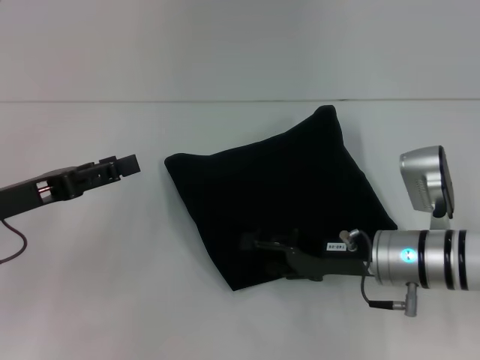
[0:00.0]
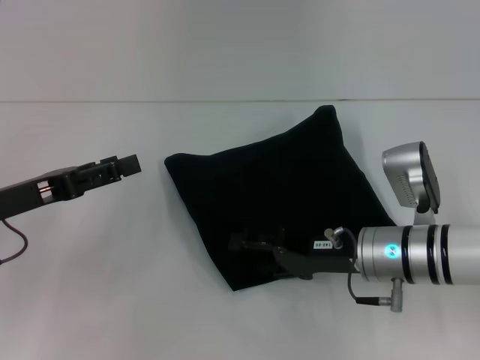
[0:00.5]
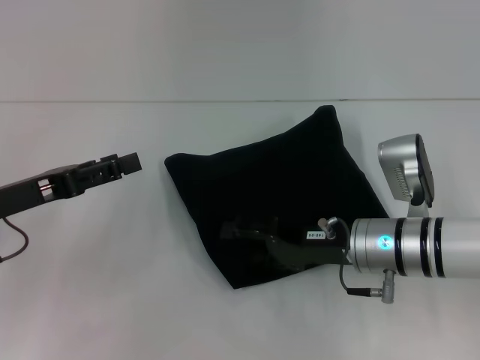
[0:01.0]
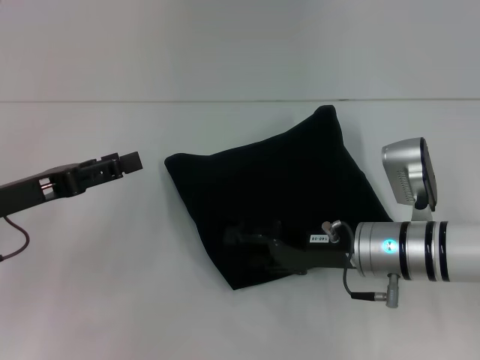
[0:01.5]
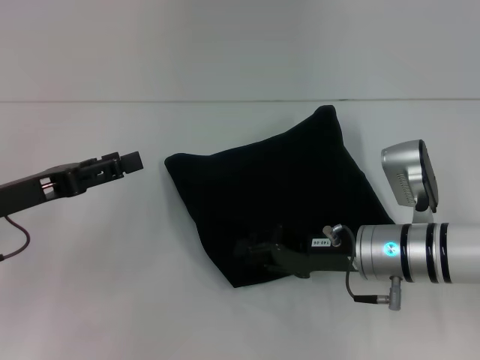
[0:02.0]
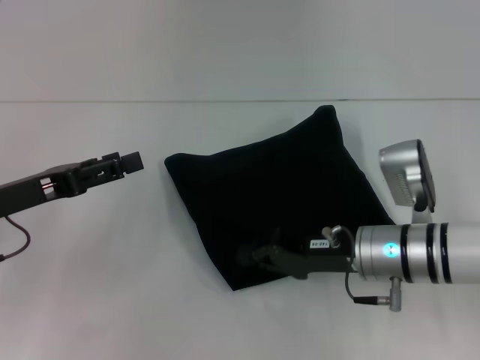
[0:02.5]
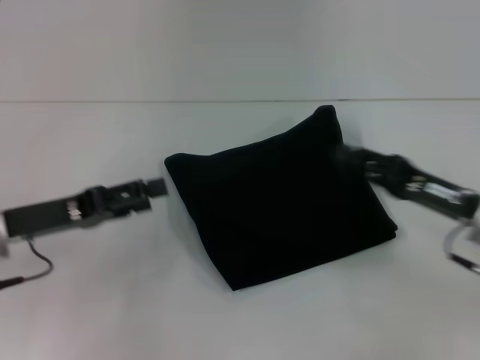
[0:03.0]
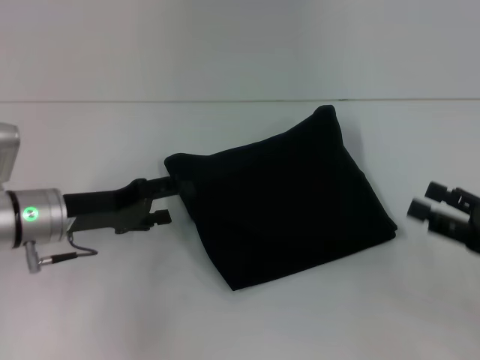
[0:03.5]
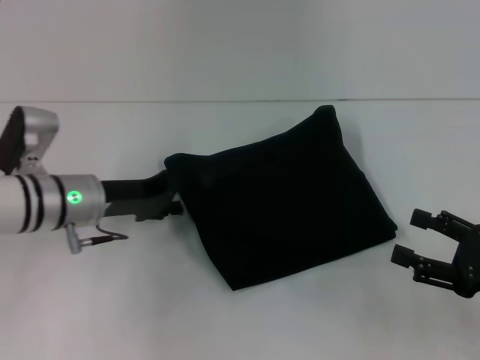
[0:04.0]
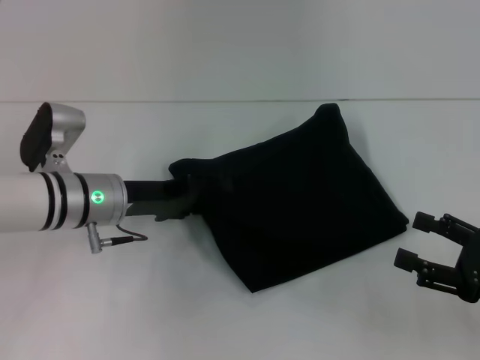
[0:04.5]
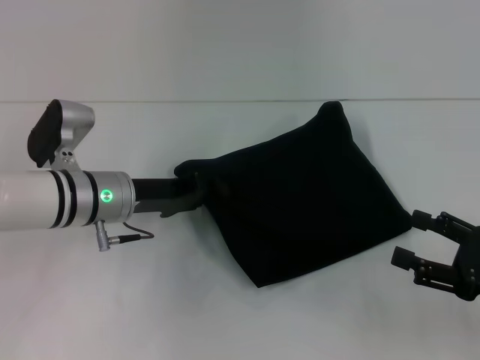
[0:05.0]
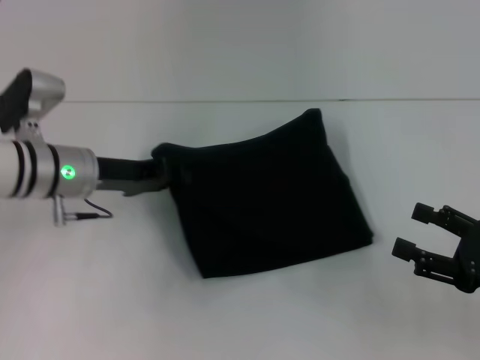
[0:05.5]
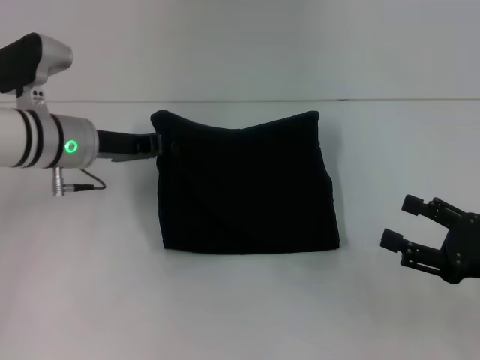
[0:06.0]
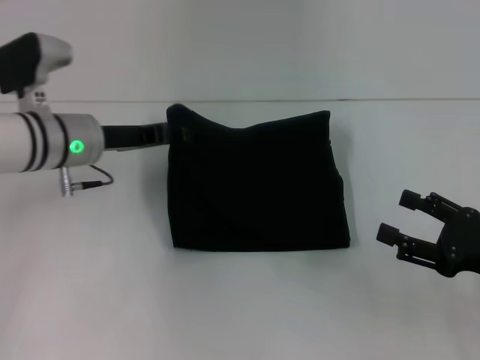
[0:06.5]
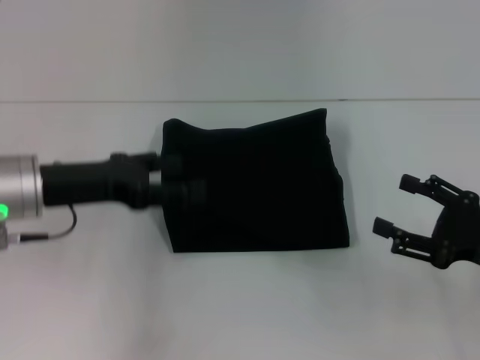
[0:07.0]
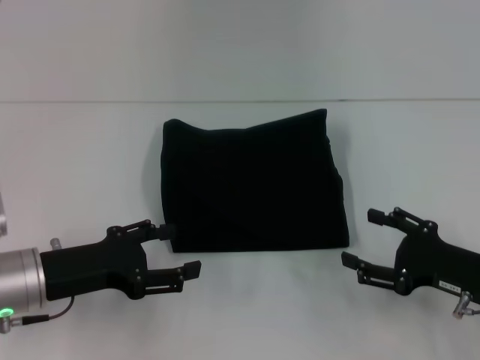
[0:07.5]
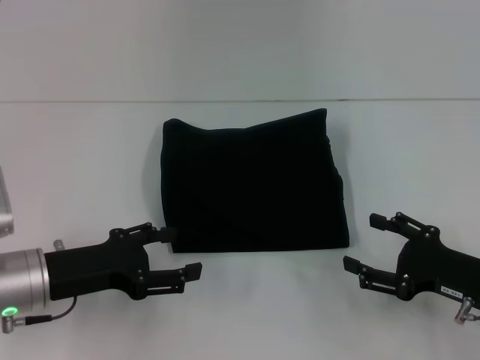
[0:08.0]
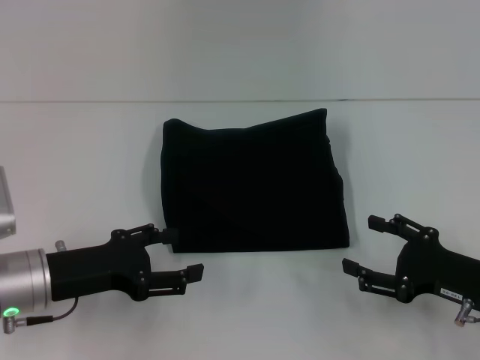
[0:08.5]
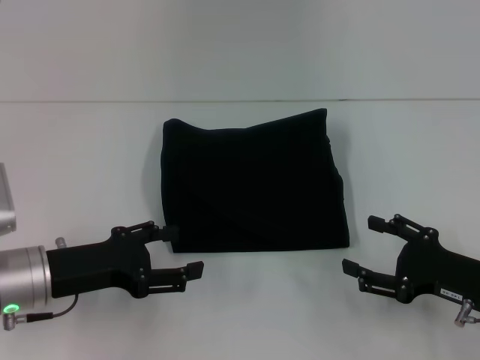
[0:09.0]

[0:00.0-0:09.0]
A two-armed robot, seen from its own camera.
0.0 to 2.0 s: The right gripper closes up.
2.0 to 4.5 s: The left gripper is displaced to the right and forward by about 15 cm. Meanwhile the right gripper goes about 20 cm to the right and backward, and opens.
4.5 to 7.0 s: The left gripper goes about 10 cm upward and to the left, and closes and opens again.
7.0 to 9.0 s: The left gripper is displaced downward and backward by some 10 cm.

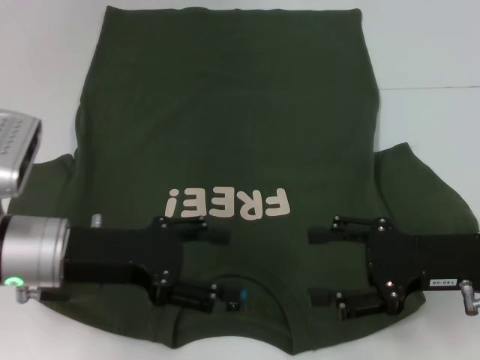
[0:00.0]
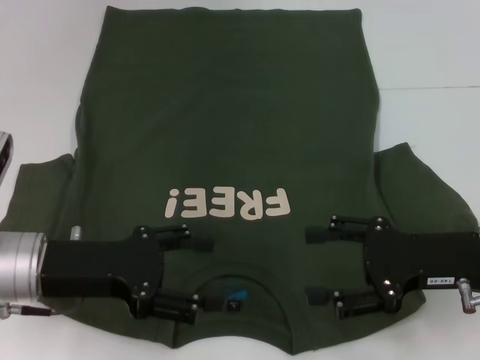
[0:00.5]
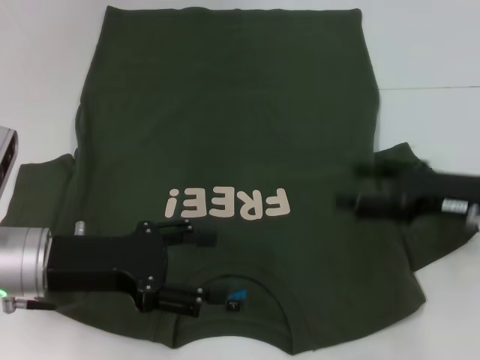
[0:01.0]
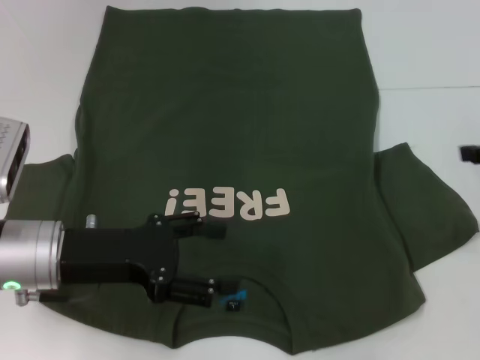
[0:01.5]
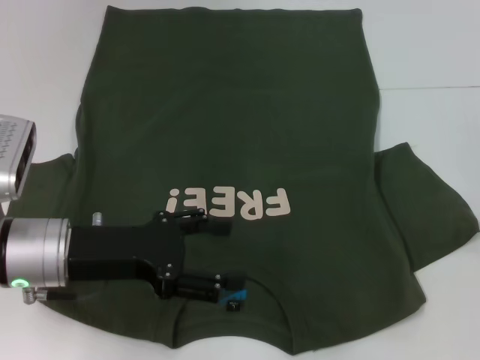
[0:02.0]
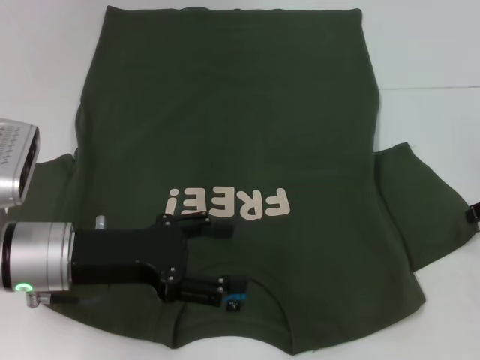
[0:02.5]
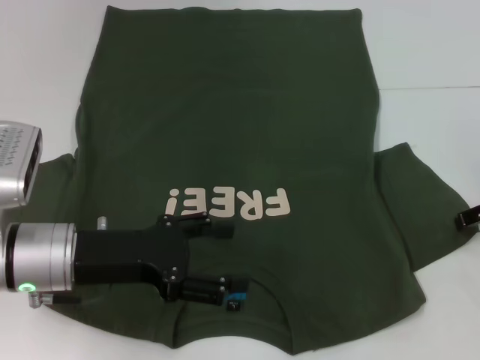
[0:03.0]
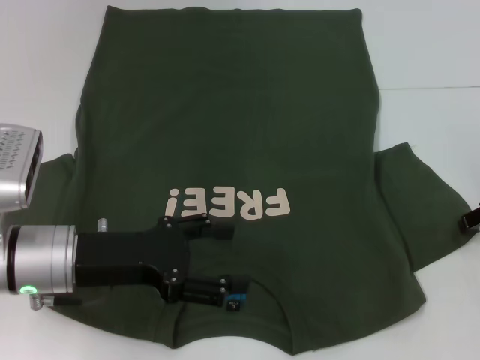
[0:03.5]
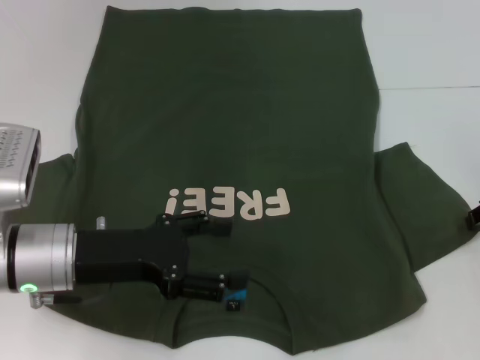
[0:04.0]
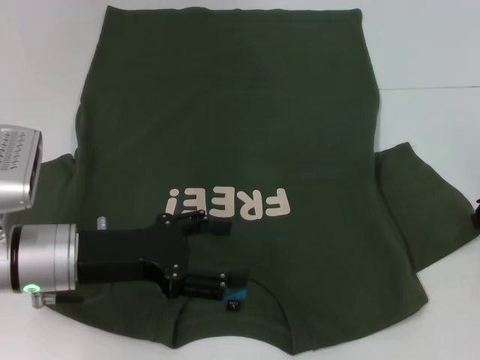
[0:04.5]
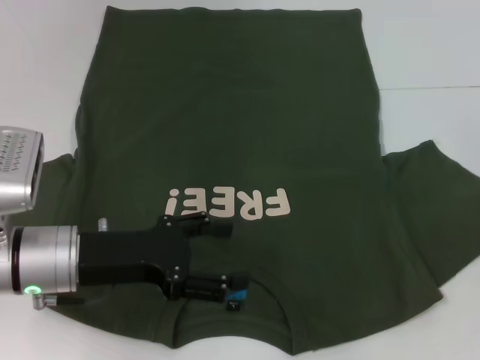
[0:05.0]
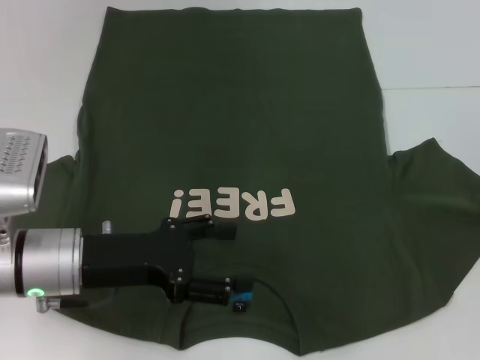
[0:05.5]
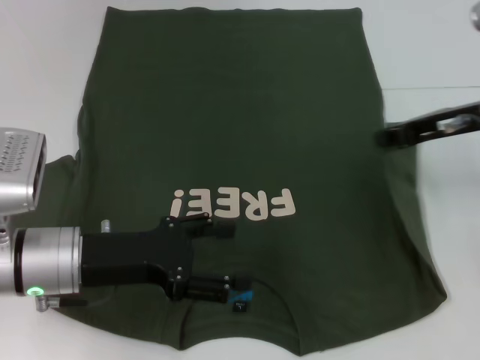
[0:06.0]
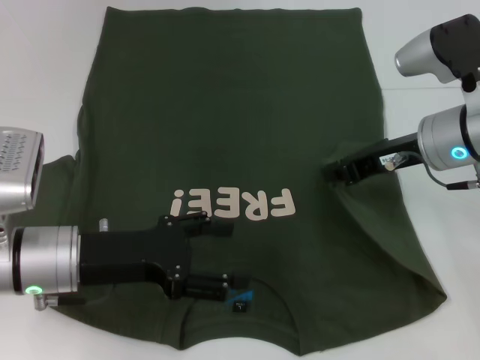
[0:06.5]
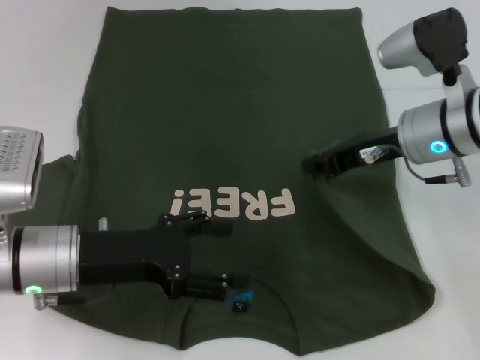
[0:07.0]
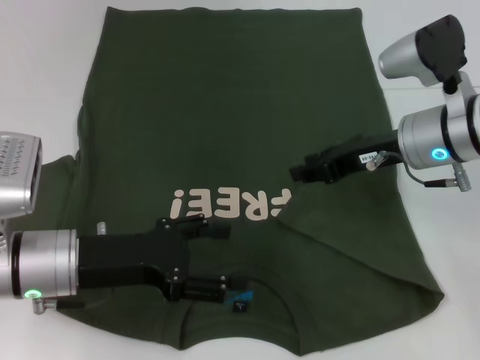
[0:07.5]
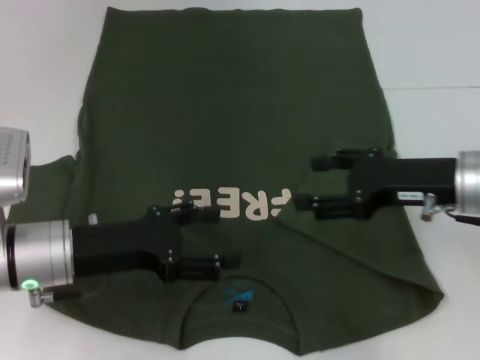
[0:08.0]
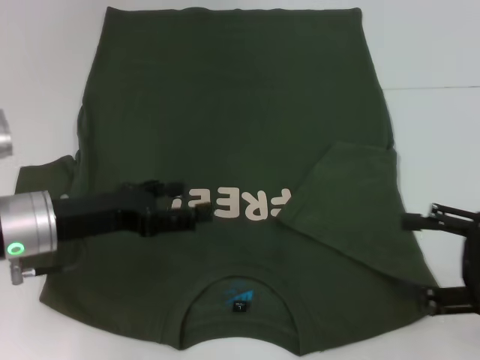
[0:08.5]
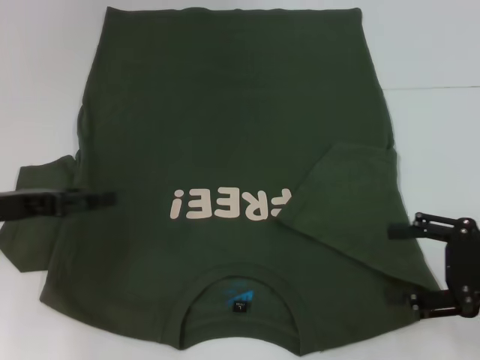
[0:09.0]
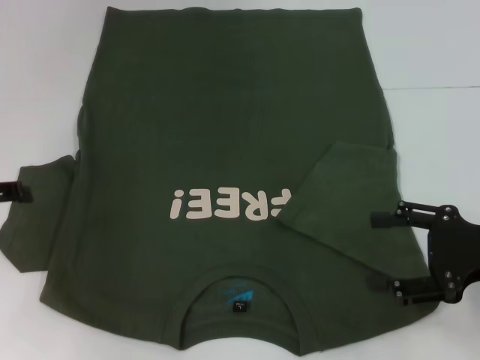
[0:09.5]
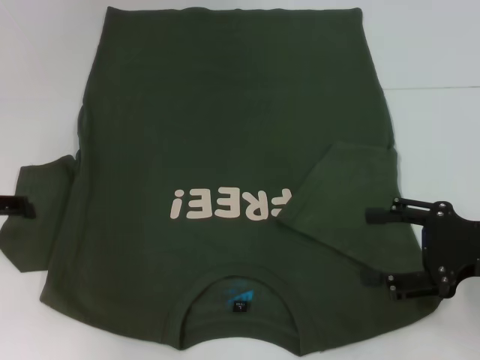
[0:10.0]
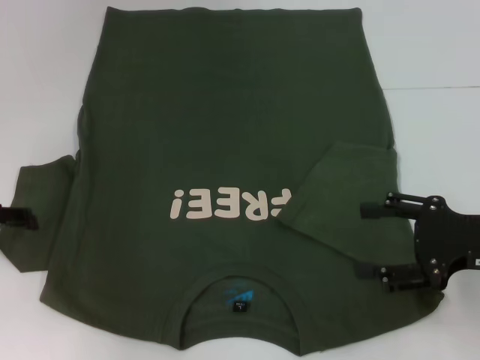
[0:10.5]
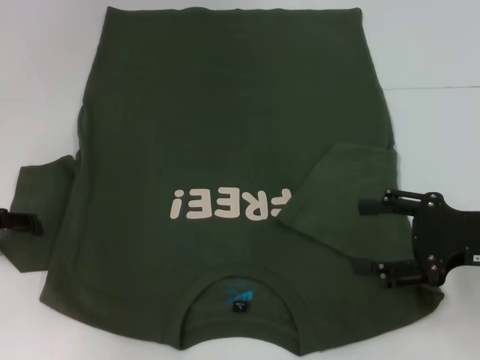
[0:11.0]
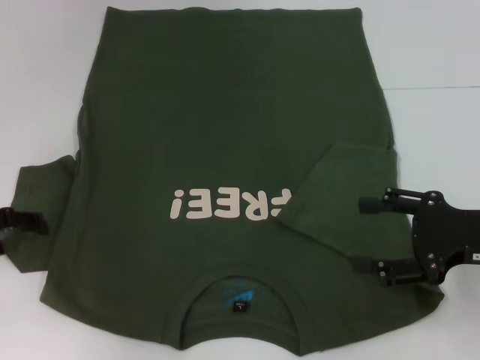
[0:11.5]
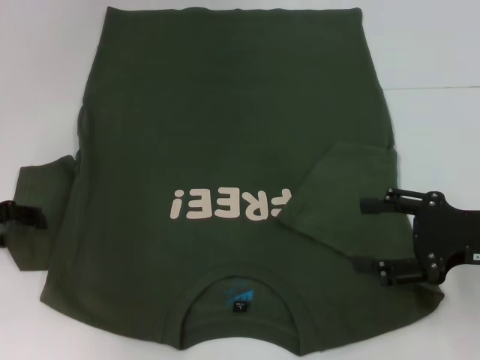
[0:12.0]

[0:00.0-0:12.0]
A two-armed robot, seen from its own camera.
Step, 0.0 to 7.5 s: Fold the bottom right sleeve with your right hand.
0.0 to 2.0 s: The right gripper goes roughly 15 cm to the right, upward and forward.
4.0 to 6.0 s: The right gripper heads to the left and upward, covering approximately 10 cm, and closes.
6.0 to 8.0 s: The right gripper is displaced backward and downward by some 5 cm, and opens up.
8.0 to 10.0 s: The left gripper shifts some 15 cm to the left. Meanwhile the right gripper moves backward and to the right, about 10 cm.
10.0 to 12.0 s: The grippers stay close to where they were, moving slightly.

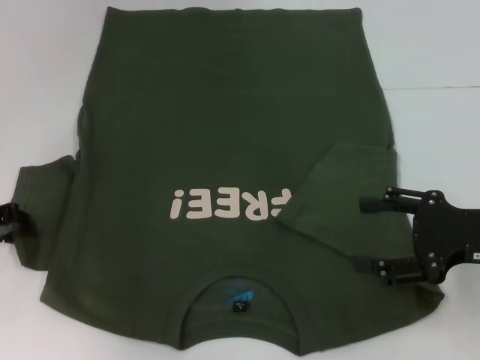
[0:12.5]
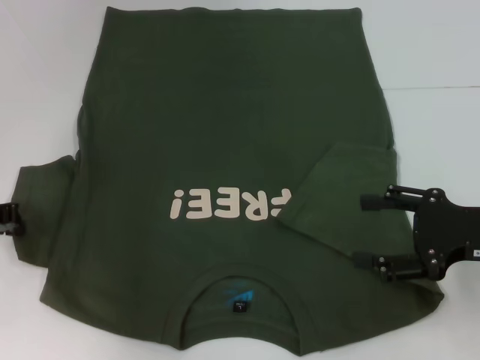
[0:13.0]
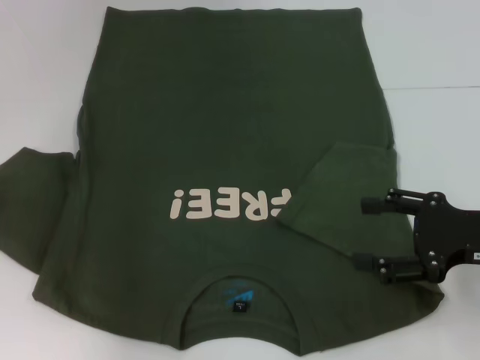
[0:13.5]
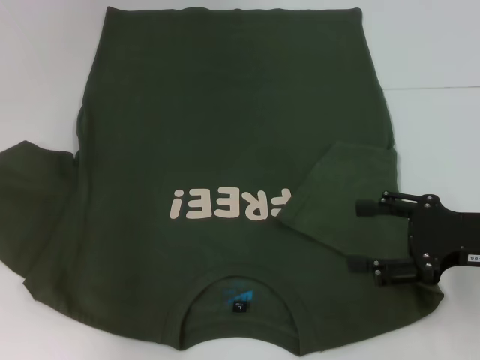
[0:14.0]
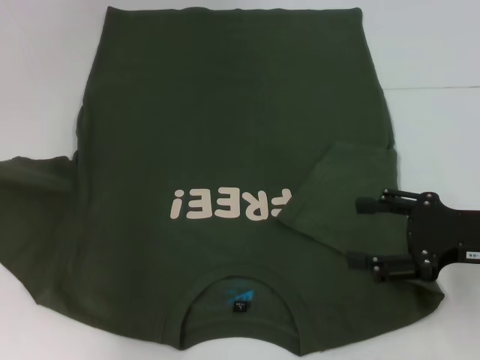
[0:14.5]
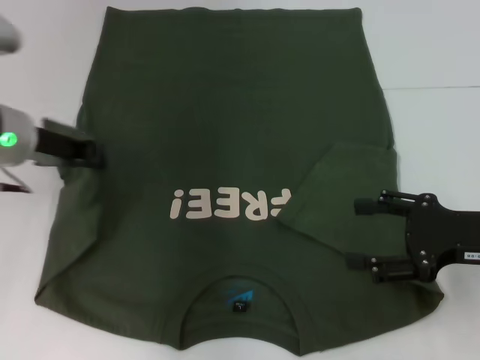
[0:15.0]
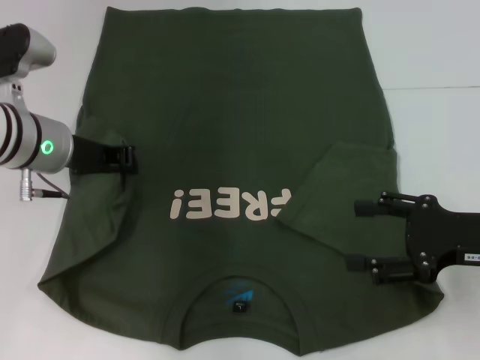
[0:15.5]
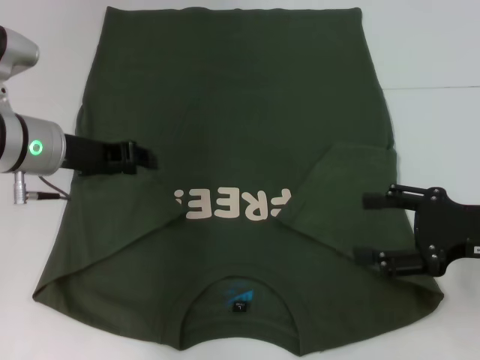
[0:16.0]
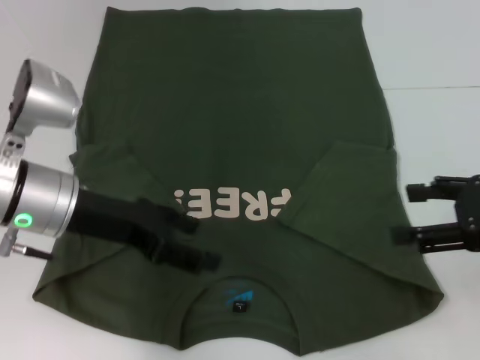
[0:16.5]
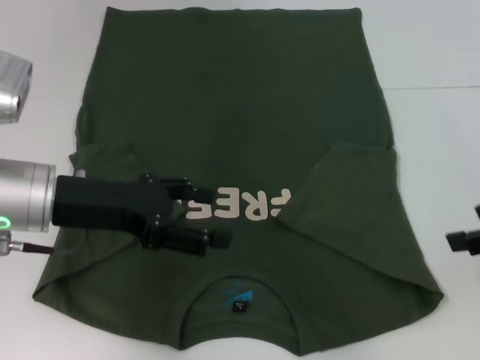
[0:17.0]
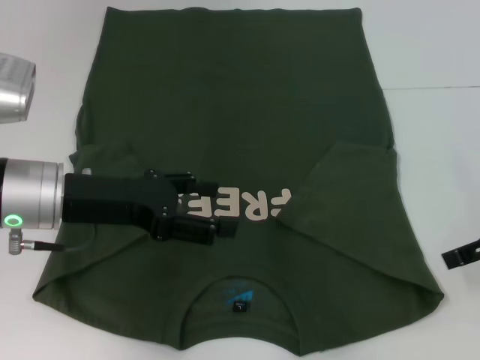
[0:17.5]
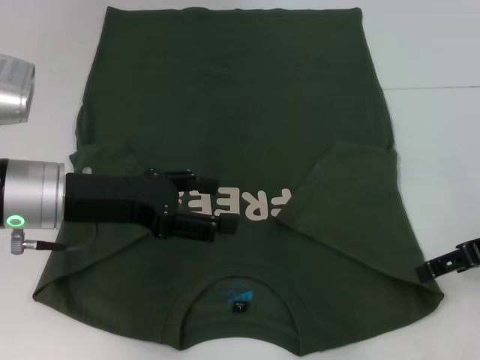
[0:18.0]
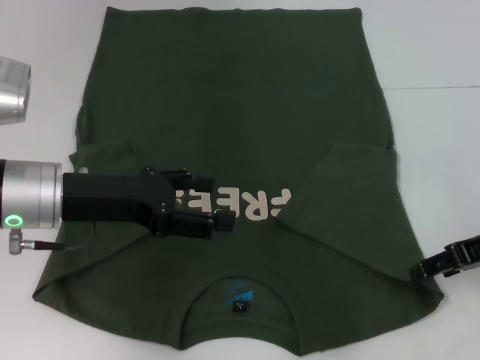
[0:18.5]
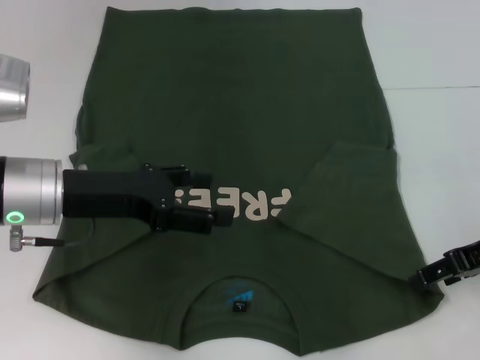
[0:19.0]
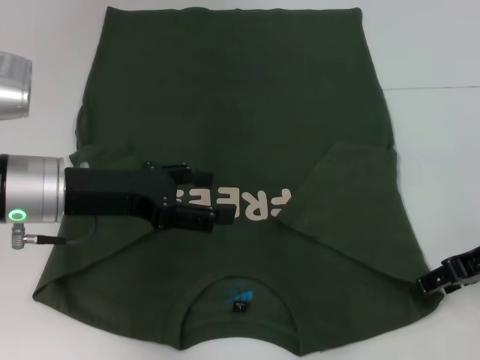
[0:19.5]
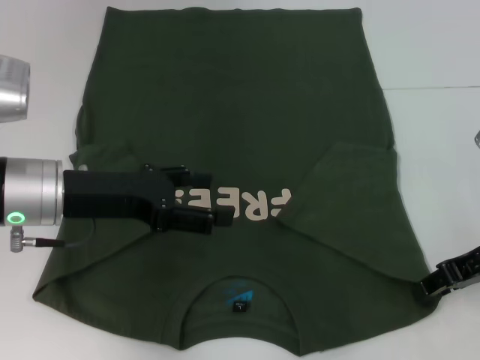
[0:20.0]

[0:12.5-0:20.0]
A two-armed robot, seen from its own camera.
Step, 12.5 to 15.5 s: Fold the bottom left sleeve with your left hand.
12.5 to 14.5 s: The left gripper closes up.
14.5 to 16.5 s: The right gripper shifts approximately 5 cm upward. The left gripper goes approximately 15 cm to the right, and opens its fingers.
18.0 to 20.0 s: The right gripper closes up.
